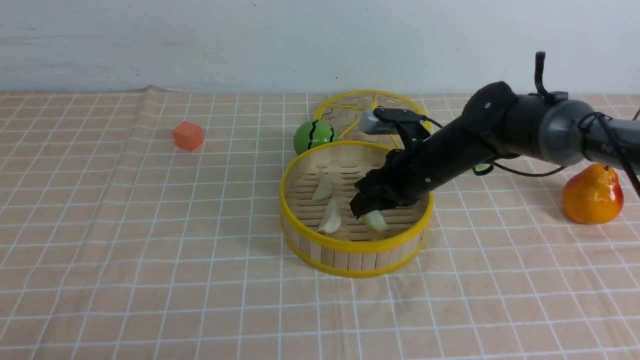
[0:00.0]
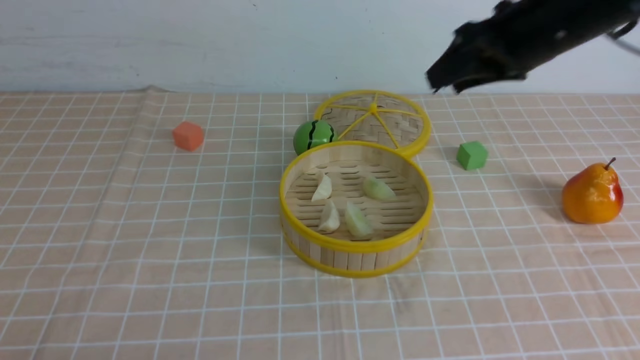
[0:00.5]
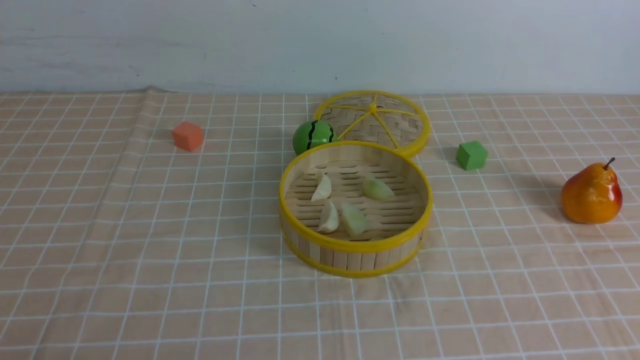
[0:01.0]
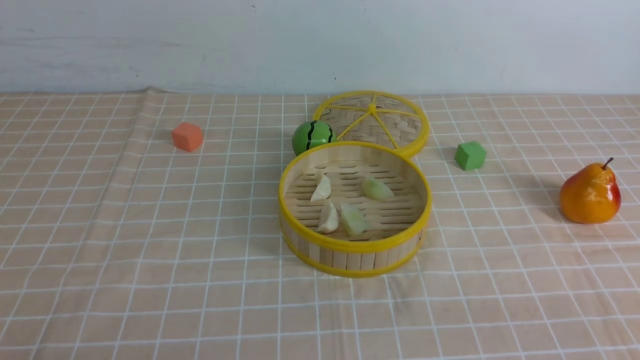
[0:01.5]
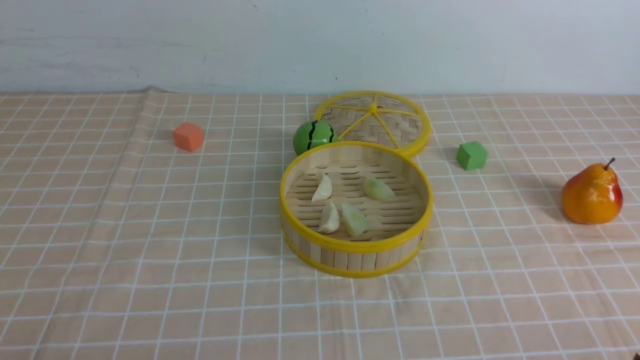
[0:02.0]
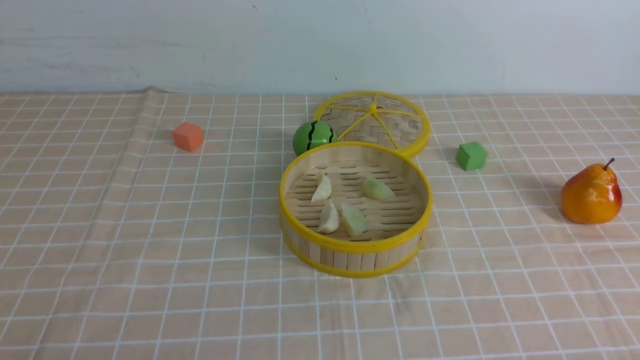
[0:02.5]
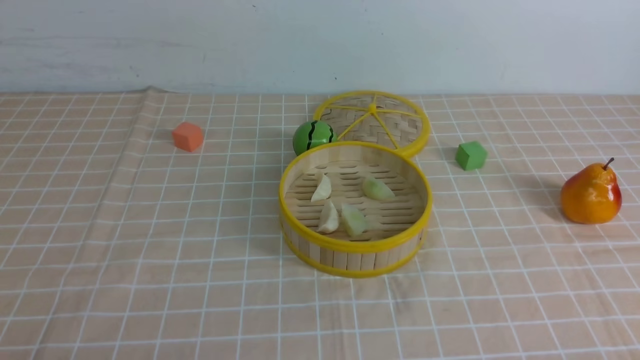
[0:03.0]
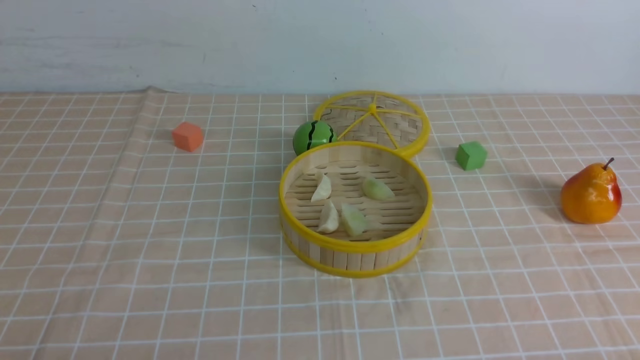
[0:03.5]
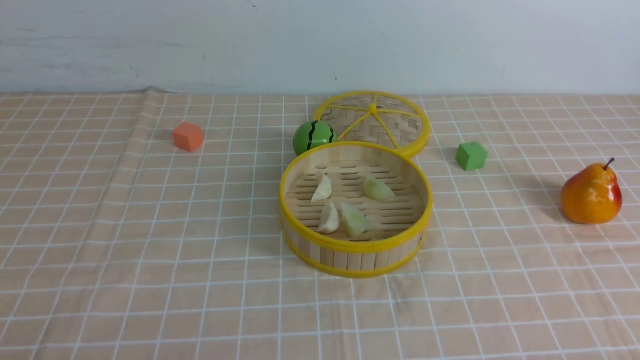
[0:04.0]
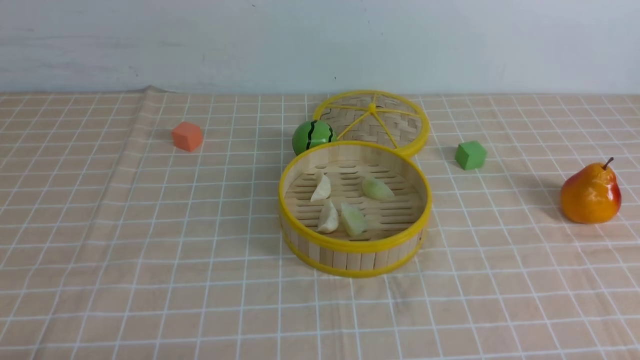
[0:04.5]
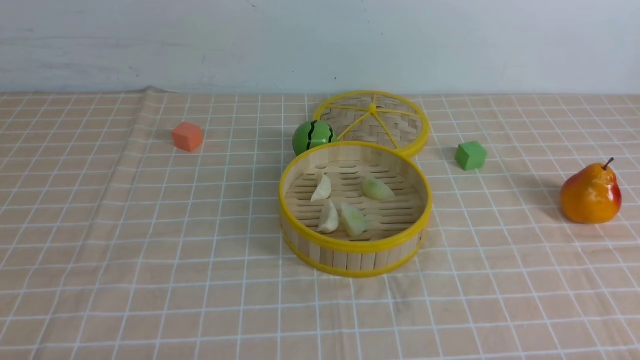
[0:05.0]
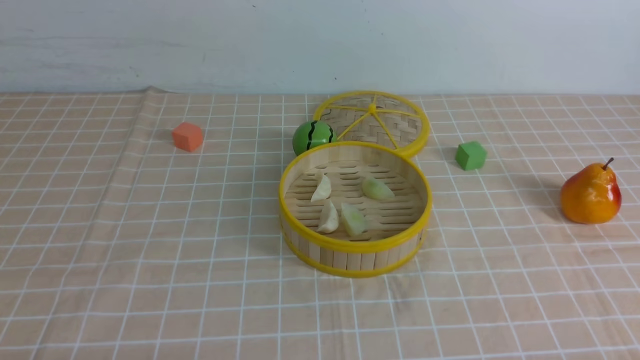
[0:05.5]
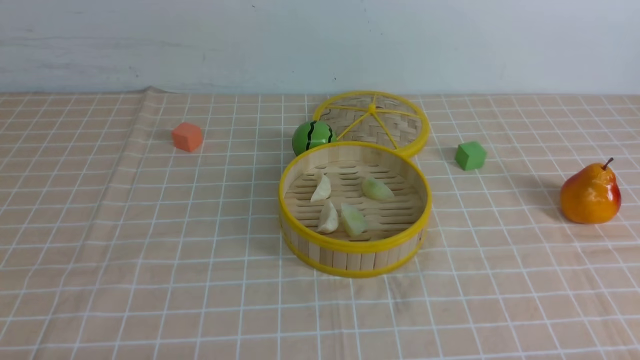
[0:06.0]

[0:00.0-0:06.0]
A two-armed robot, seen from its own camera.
Task of the whole recording: put the dumplings into the steamer on the table with the brown tablecloth.
0:00.0 to 0:02.0: The right gripper goes roughly 40 cm backward and to the right, and closes its fingers.
